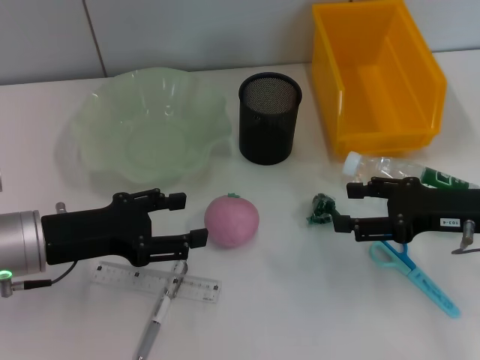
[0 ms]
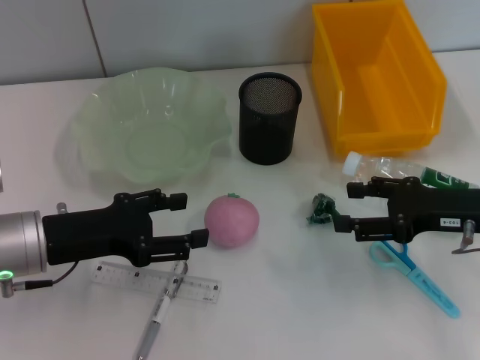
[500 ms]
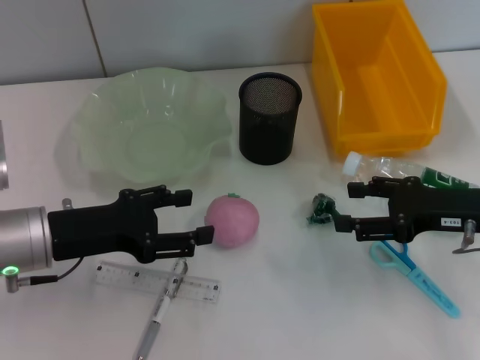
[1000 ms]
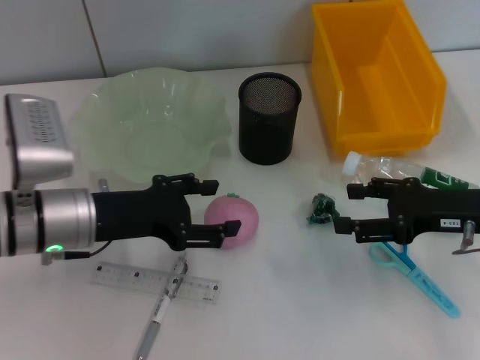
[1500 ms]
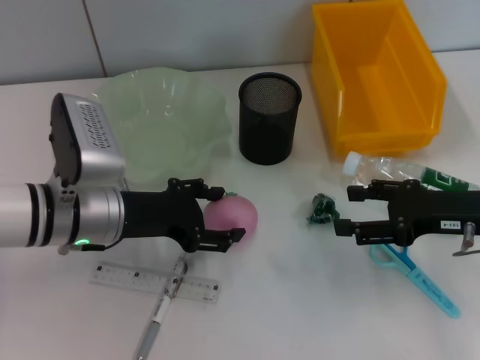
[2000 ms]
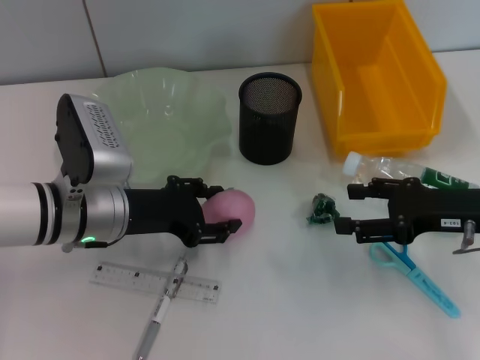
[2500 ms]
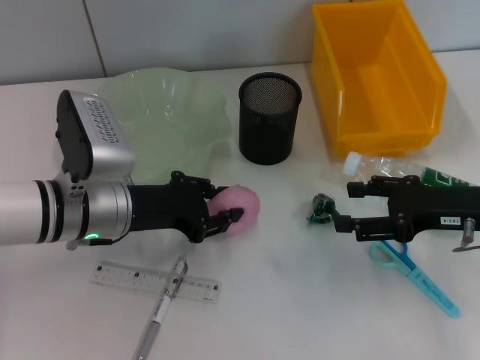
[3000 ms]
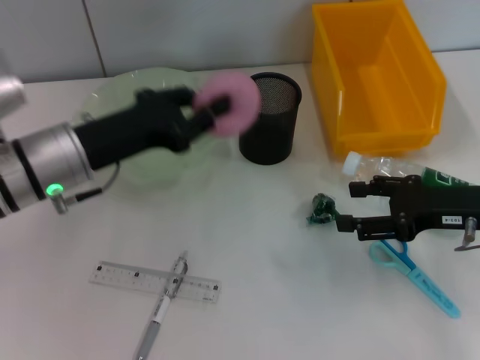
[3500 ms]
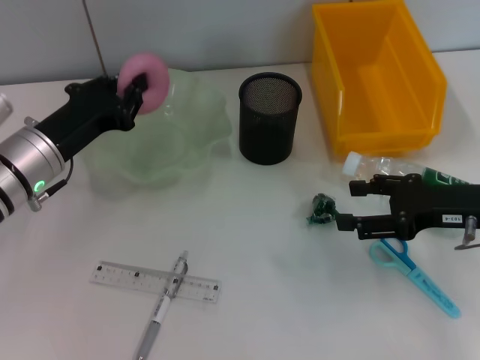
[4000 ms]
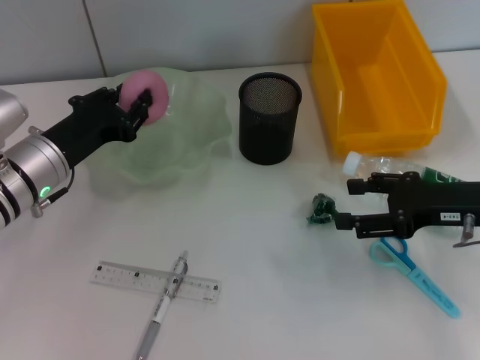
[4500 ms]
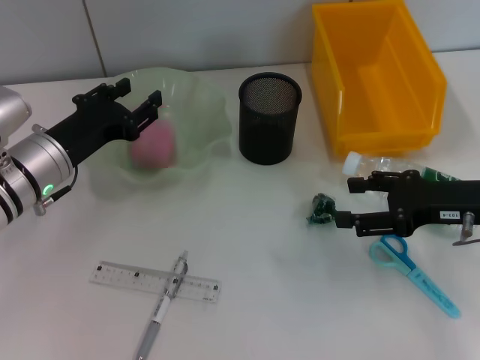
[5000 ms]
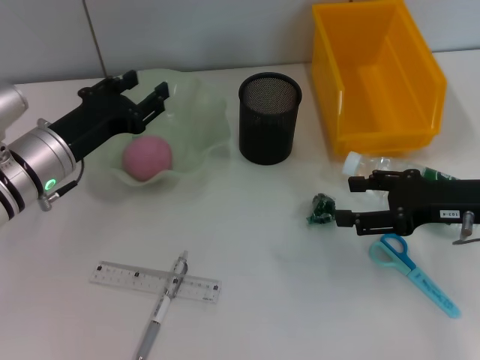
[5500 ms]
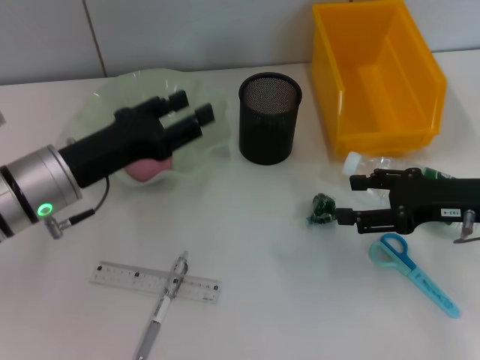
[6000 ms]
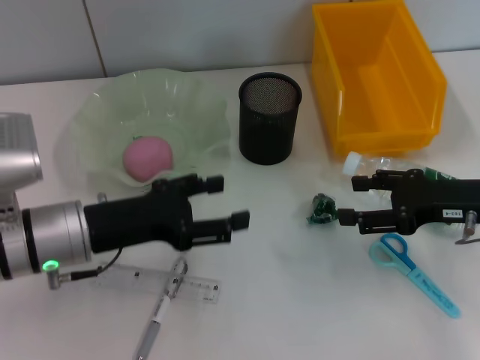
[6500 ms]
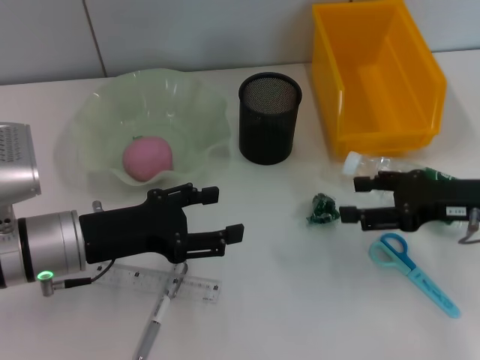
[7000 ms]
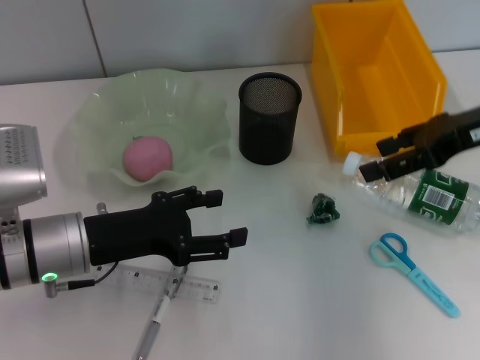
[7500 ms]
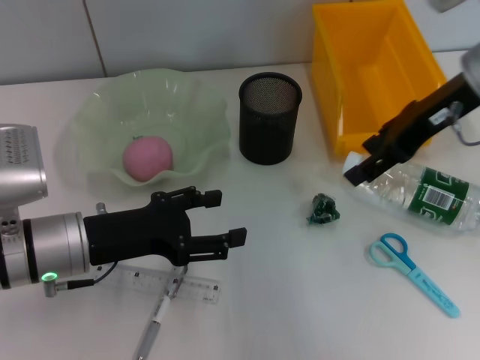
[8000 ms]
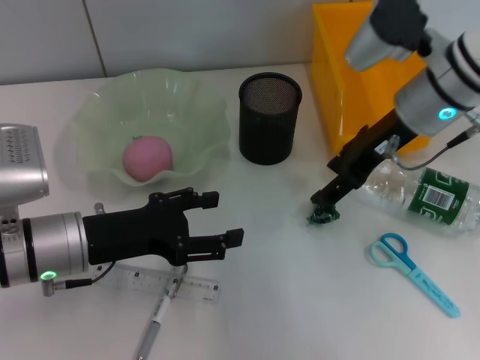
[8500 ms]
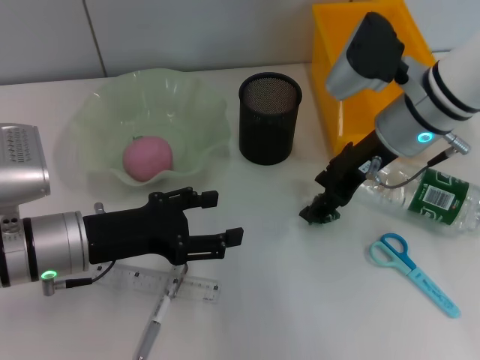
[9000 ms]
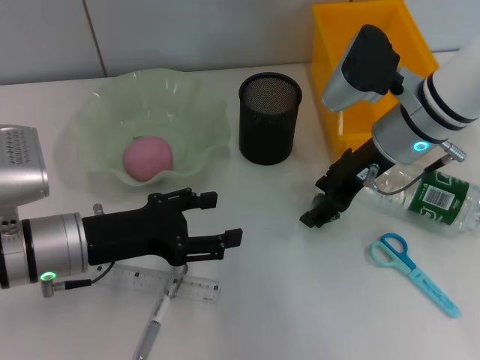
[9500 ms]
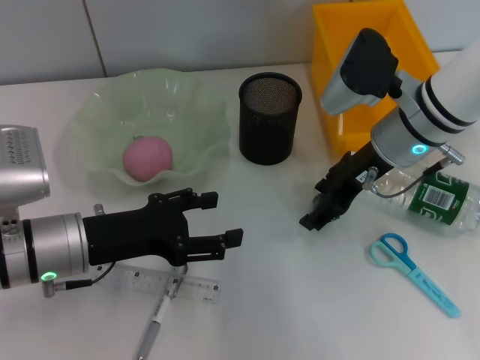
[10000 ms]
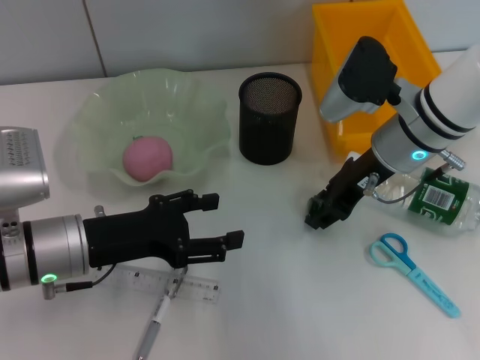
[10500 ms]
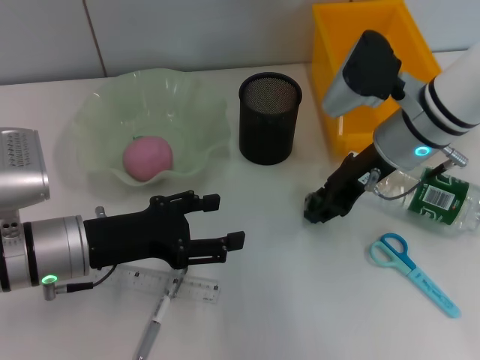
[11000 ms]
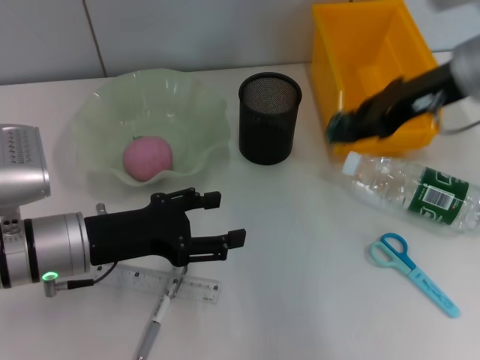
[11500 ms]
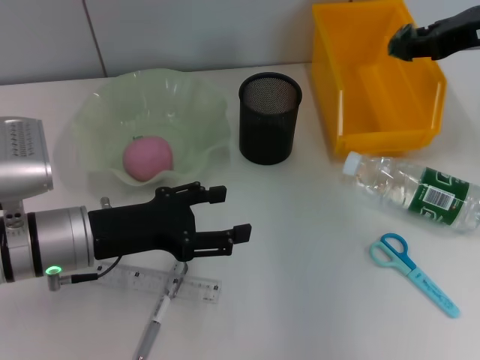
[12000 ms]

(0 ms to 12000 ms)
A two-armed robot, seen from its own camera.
Step, 0 ms - 2500 ms: Grab the peach with the left hand.
Step, 3000 ms - 5000 ms: Place the peach into the fruit bowl with the left hand.
Step, 5500 ms - 10500 ms: Grab the plastic with the right hand.
0 ms - 2000 ms: The left gripper shifts about 5 cm to the right.
2000 ms - 4000 ms: The left gripper changes place by some 5 cm, and closes.
4000 ms - 6000 ms: The left gripper opens up.
6000 ms - 8000 ms: The right gripper moves upward, forward and to the left, roughly 15 cm.
8000 ms - 10000 ms: The right gripper travels downward and to the left by roughly 10 cm.
10000 ms - 12000 ms: The right gripper is displaced to the right and upward by approximately 15 cm, and closes up.

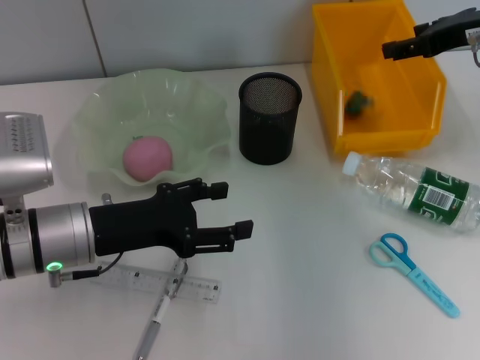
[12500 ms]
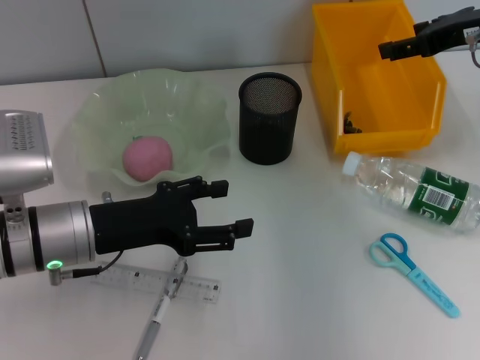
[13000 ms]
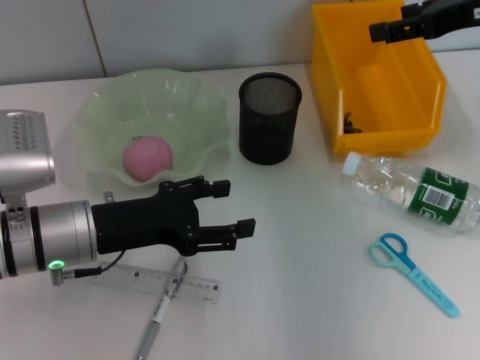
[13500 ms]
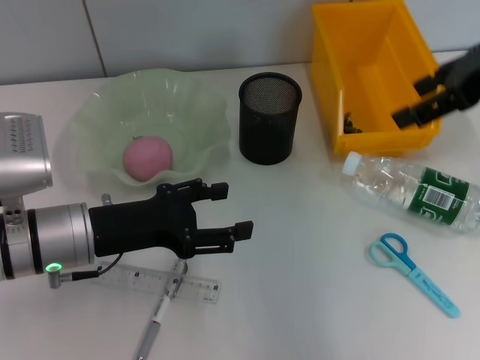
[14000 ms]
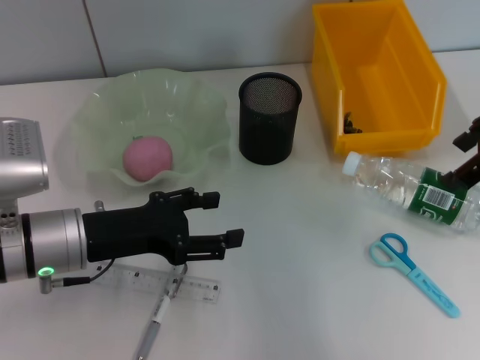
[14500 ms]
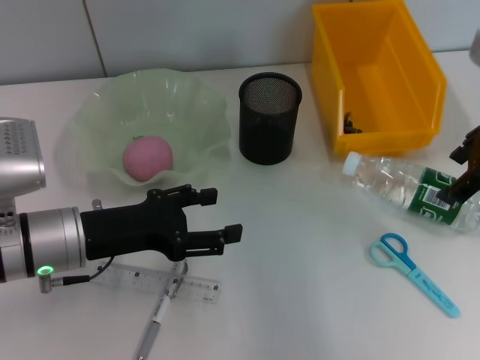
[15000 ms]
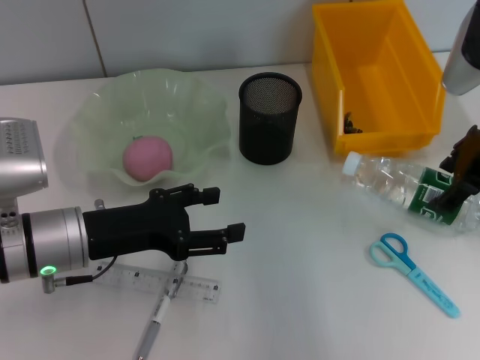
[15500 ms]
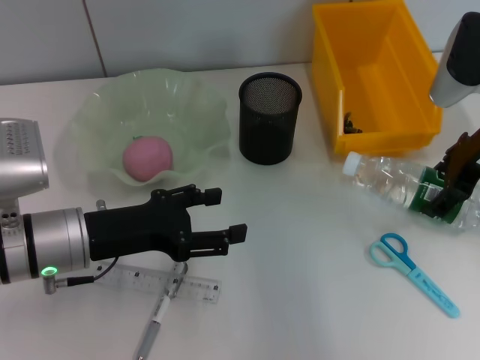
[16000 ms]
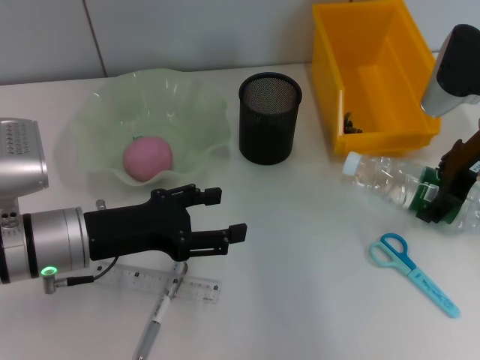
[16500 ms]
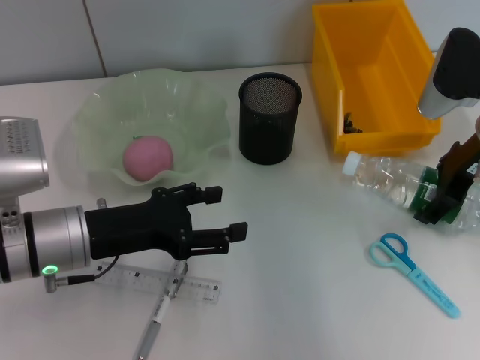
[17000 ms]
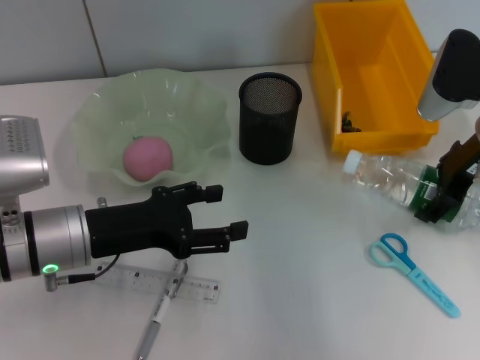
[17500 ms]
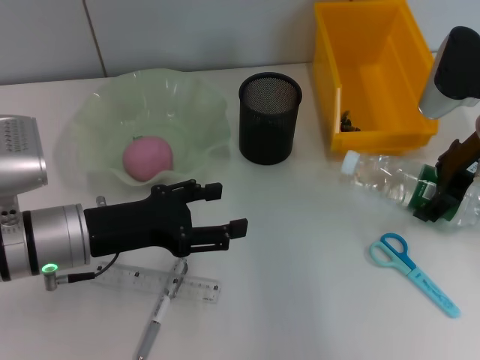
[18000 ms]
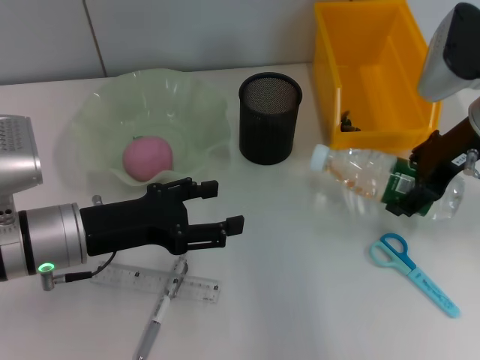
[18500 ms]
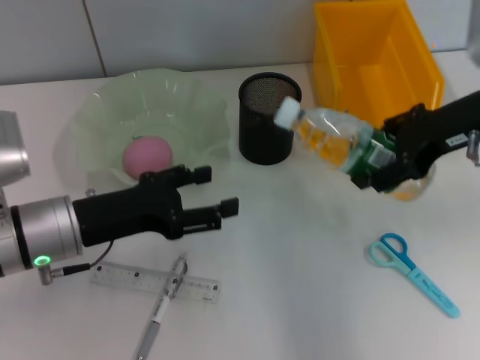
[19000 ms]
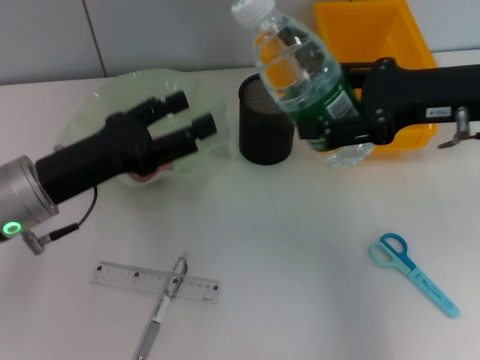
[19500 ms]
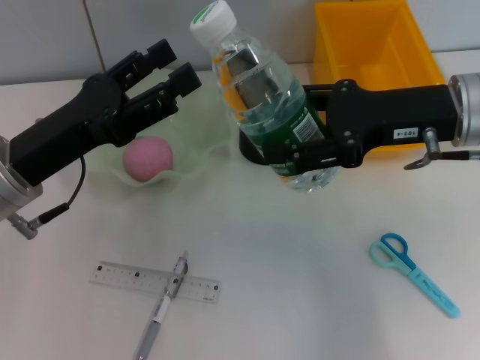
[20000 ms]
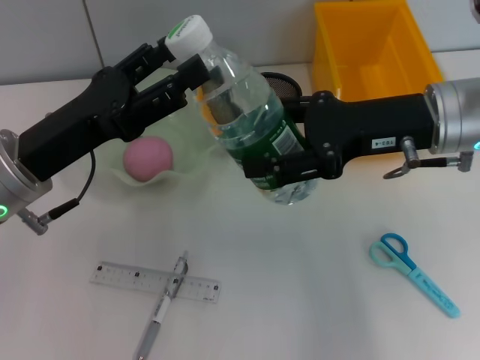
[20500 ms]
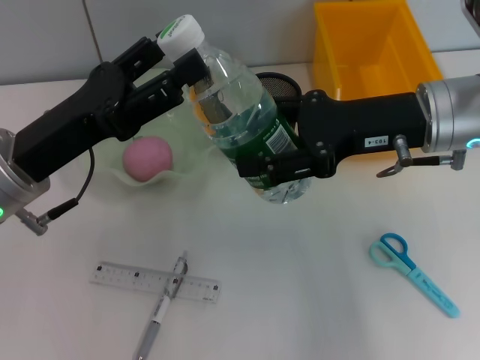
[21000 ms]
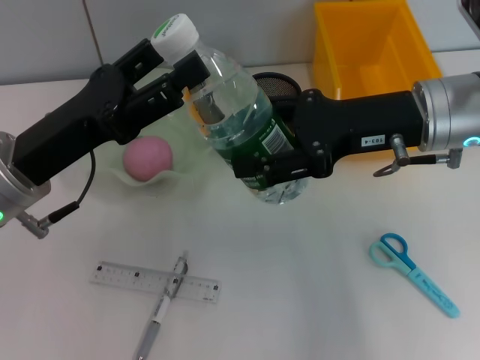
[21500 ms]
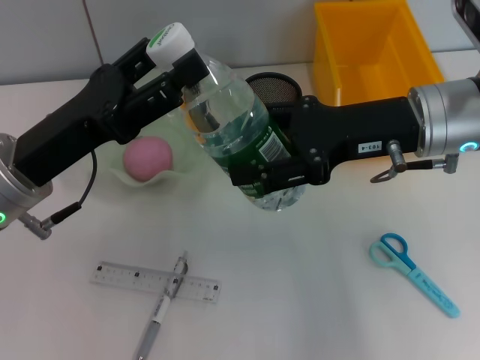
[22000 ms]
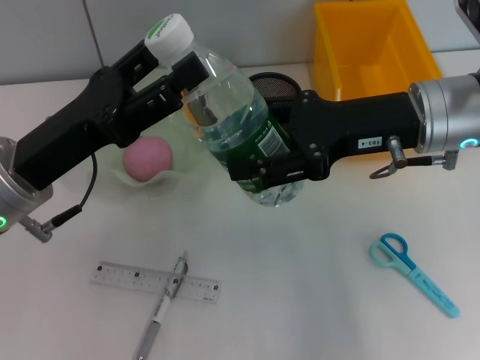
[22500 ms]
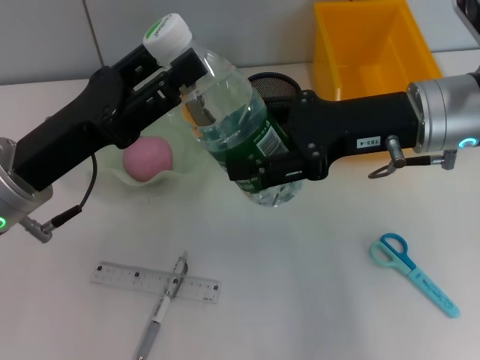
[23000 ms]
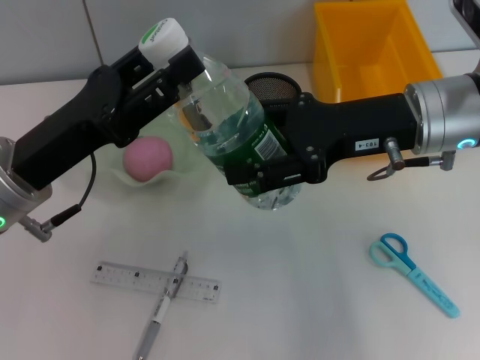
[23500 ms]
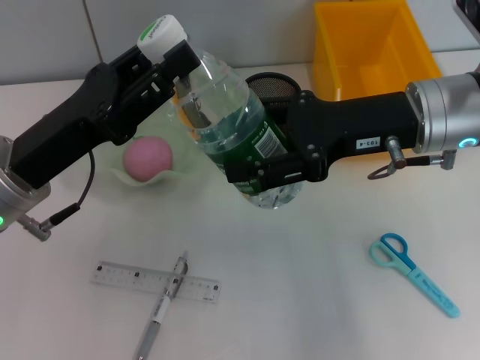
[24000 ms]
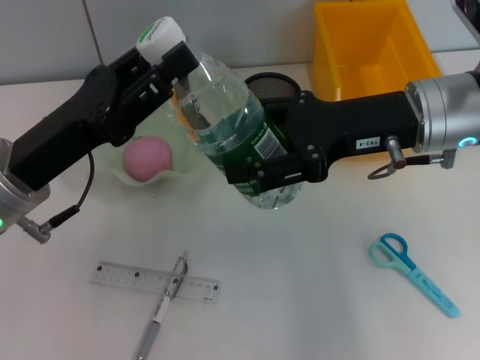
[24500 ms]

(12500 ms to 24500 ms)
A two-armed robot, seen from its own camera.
Step, 13000 ms - 17500 ms: Grab the water bottle with the right hand.
12500 ms - 14500 ms: The right gripper is displaced backward by some 5 cm.
14500 ms - 16500 ms: The right gripper goes about 10 cm downward.
16500 ms - 18500 ms: The grippers make only small movements.
18500 ms - 20500 ms: The left gripper goes about 5 cm upward. Meanwhile the right gripper shifts by roughly 5 cm.
20500 ms - 22500 ms: There are only small adjustments of the grippers.
22500 ms - 24500 ms: The left gripper closes.

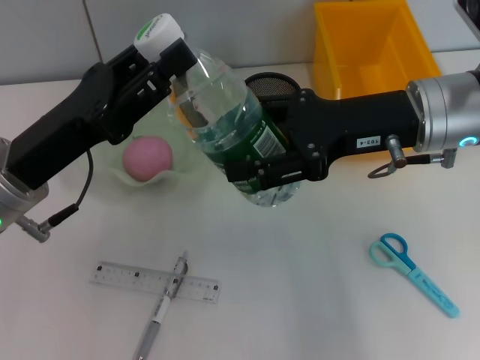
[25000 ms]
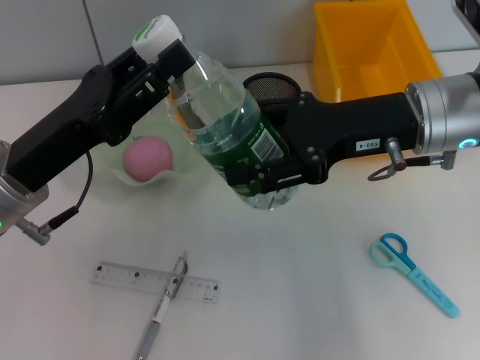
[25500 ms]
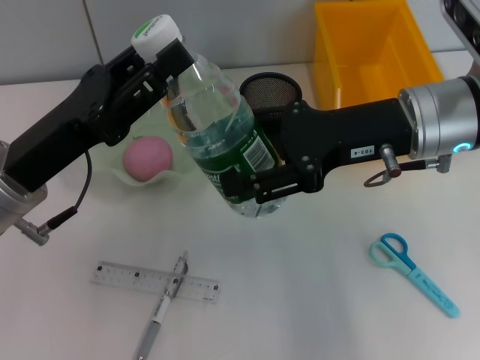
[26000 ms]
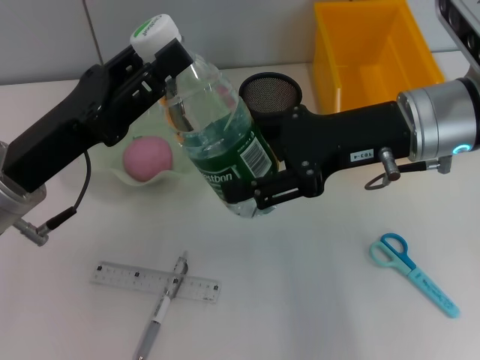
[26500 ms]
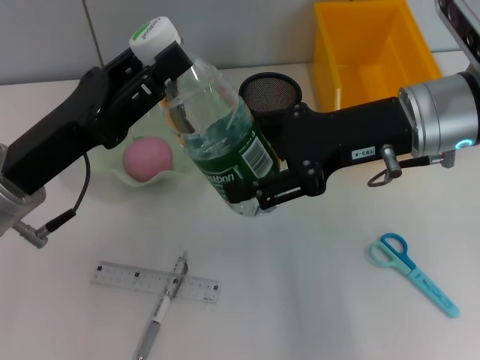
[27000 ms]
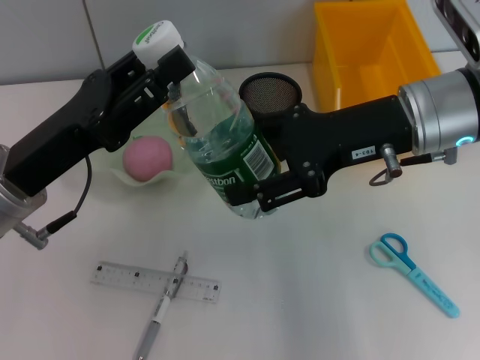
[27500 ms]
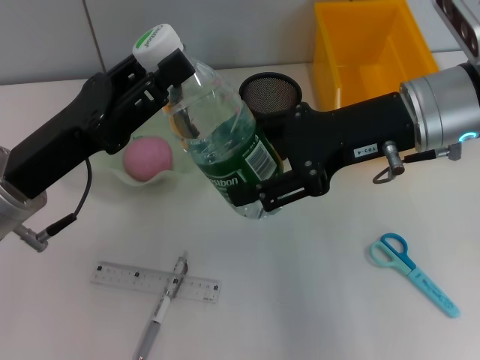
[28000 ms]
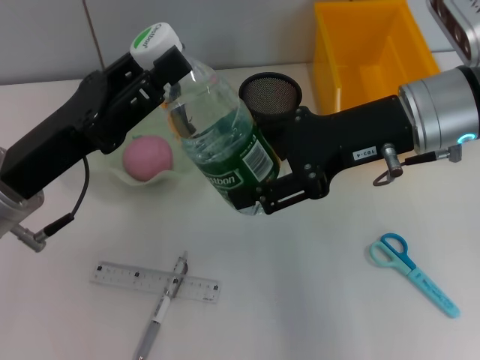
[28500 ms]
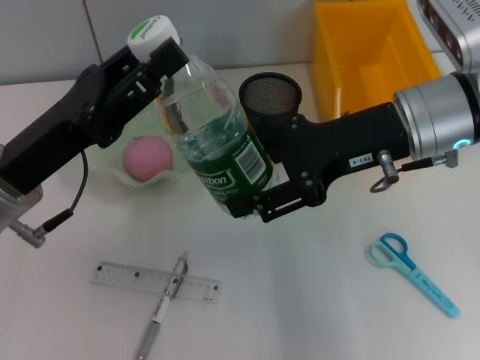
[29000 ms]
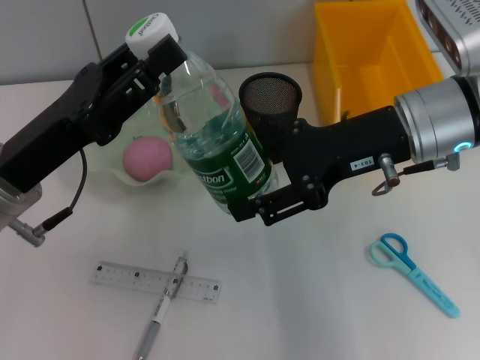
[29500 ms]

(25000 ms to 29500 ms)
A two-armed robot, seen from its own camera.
25000 ms - 29500 ms: The grippers stay close to where they were, moving slightly.
